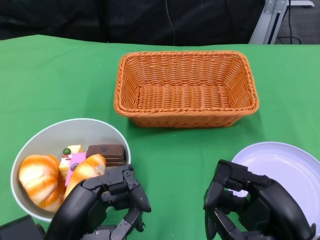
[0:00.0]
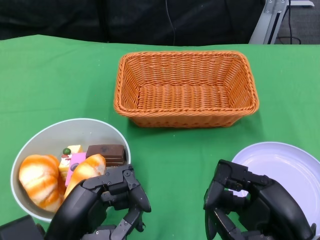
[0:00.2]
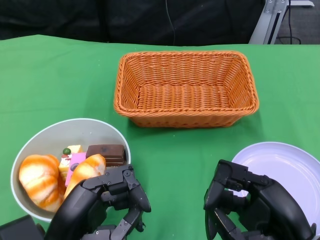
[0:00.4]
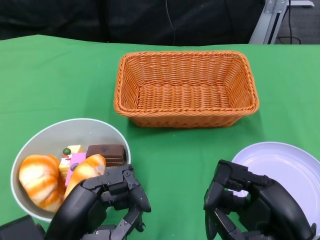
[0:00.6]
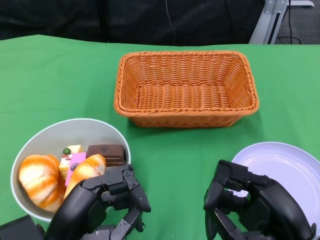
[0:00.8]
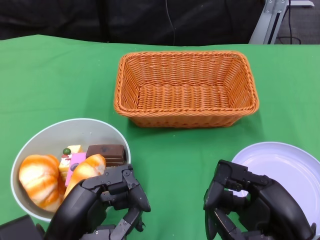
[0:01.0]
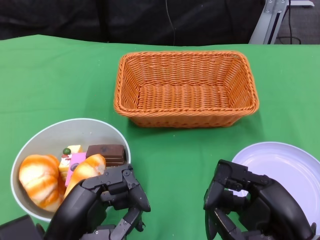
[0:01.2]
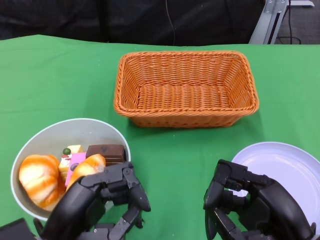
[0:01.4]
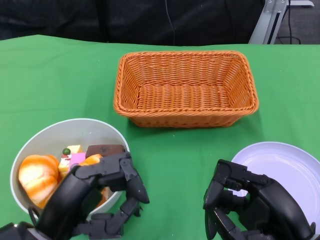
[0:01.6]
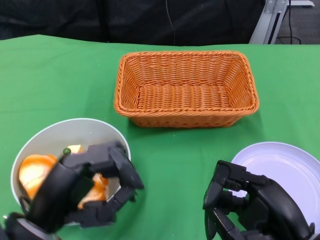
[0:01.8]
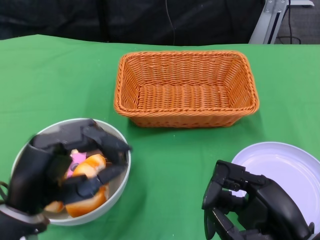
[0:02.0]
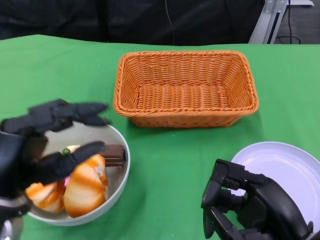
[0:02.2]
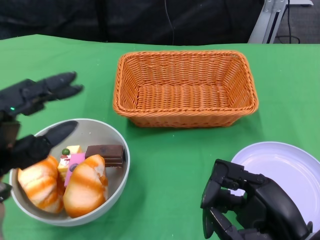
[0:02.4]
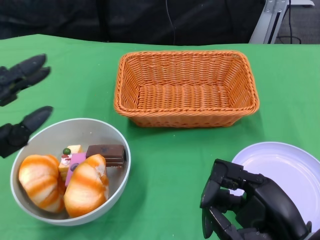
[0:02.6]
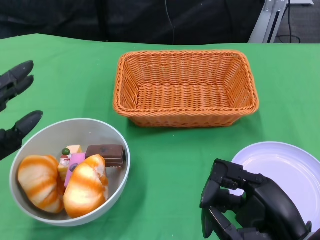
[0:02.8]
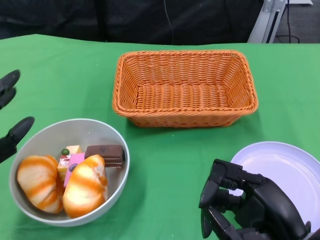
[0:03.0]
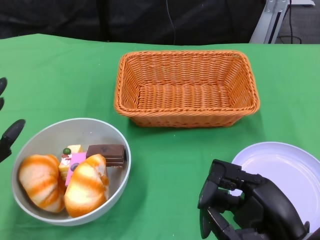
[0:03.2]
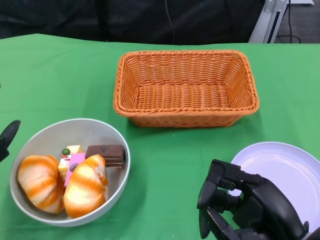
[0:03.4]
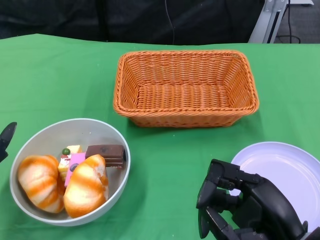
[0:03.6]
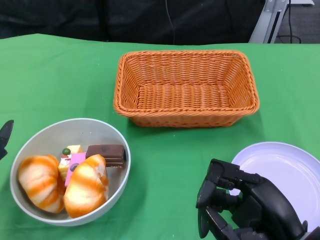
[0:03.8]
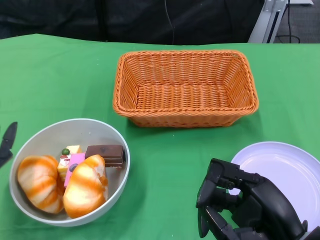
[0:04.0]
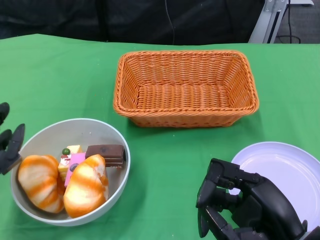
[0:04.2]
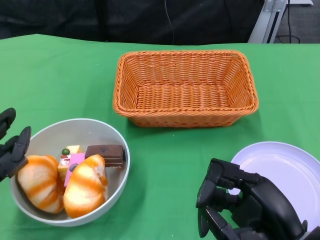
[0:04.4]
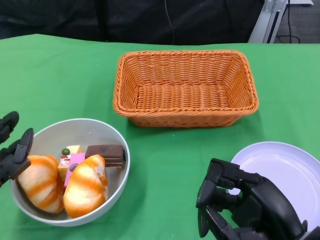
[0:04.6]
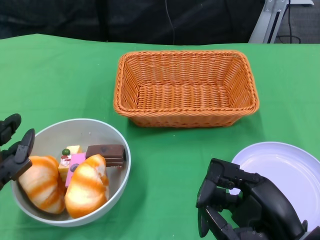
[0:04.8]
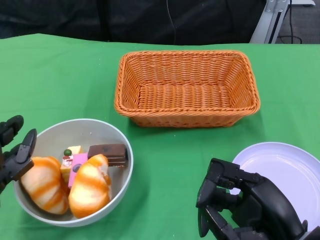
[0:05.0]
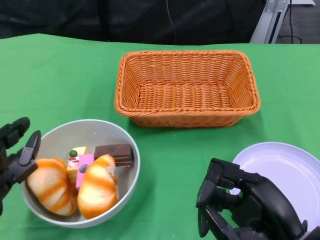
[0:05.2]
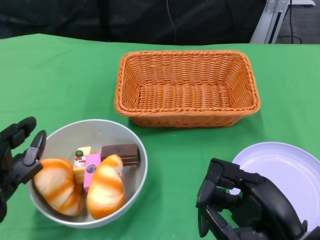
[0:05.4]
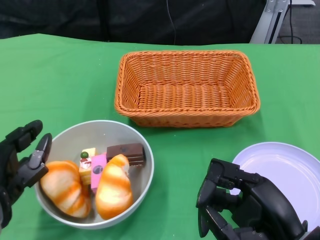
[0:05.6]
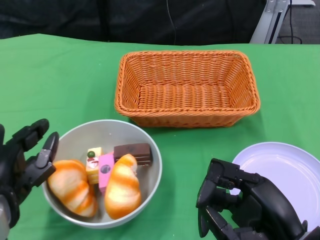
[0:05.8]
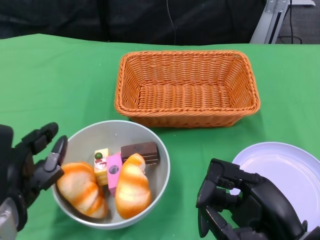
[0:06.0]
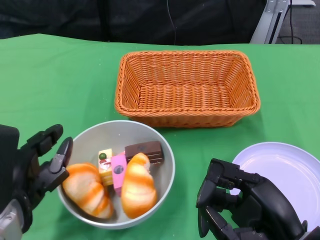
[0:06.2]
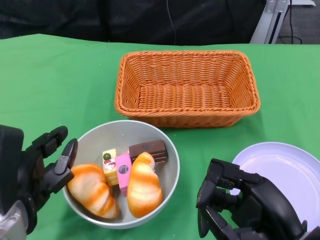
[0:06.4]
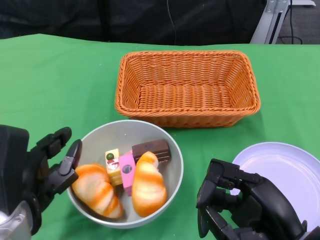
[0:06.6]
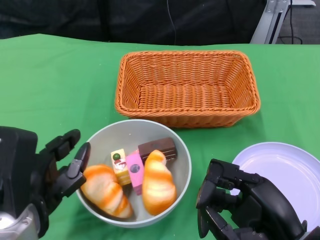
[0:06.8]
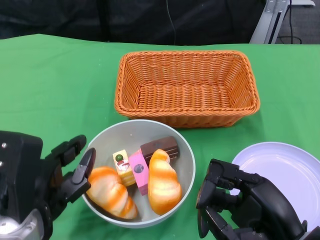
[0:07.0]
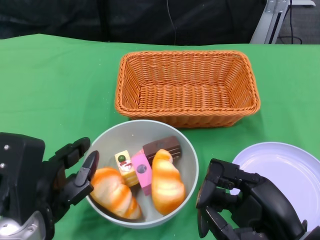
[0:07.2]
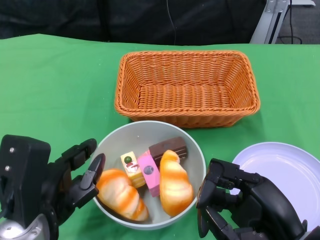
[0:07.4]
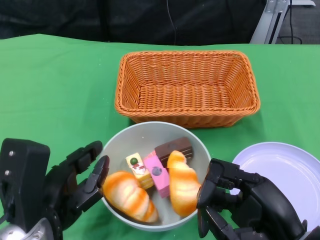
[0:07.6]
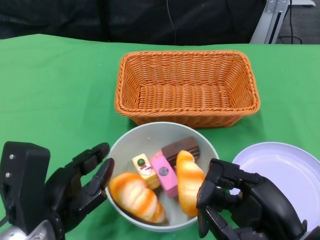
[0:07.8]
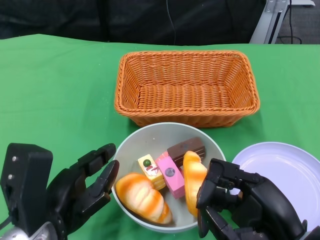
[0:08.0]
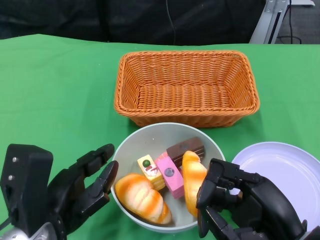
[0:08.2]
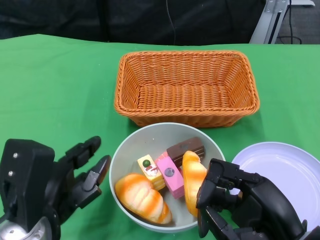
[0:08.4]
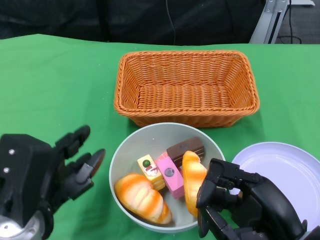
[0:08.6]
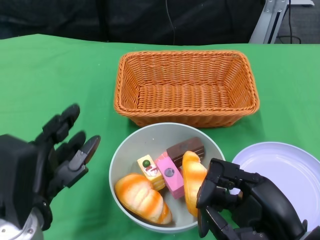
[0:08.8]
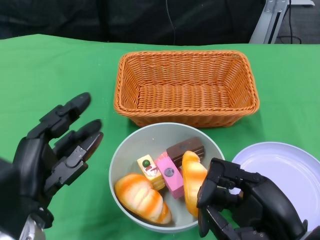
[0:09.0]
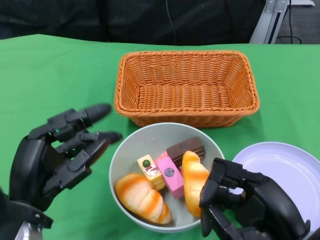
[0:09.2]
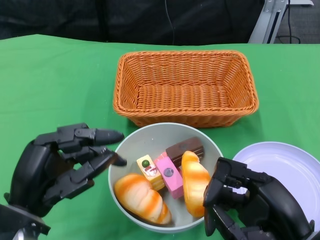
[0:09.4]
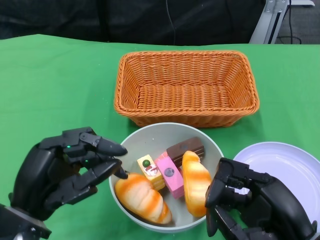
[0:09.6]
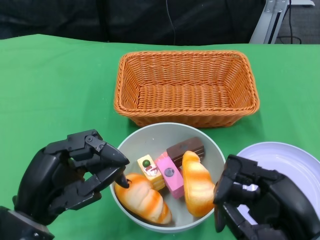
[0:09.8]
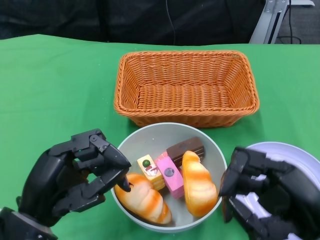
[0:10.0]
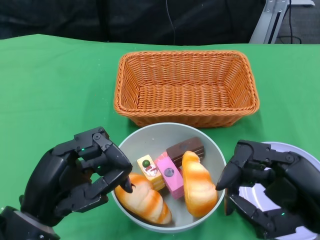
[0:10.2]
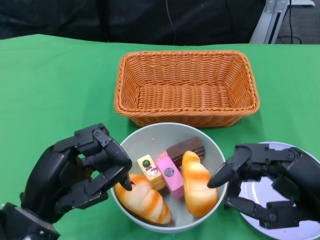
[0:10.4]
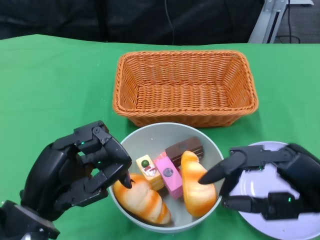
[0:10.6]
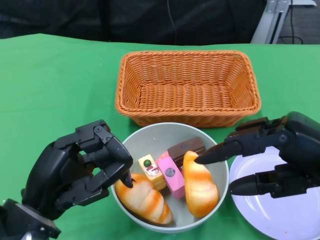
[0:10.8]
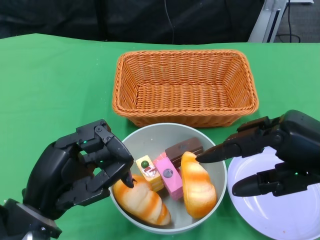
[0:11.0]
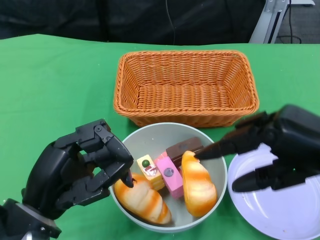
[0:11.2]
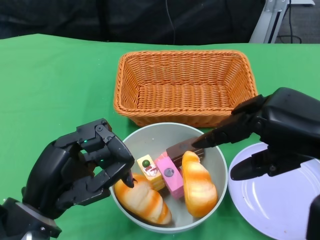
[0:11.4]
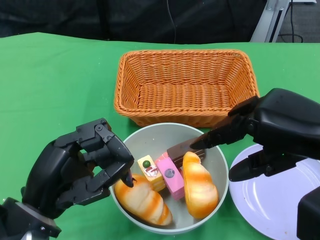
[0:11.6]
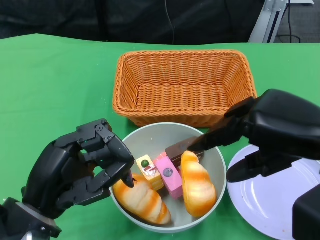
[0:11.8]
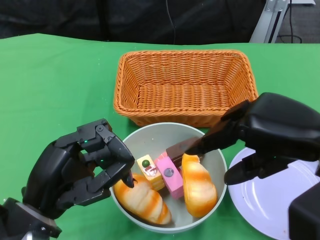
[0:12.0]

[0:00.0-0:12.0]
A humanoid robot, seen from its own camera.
Step, 0:00.0 to 0:08.4: Push the bowl to the center of the table using the left gripper.
0:01.6 to 0:03.0: The left hand moves to the left and forward, some 10 cm.
0:04.4 to 0:06.0: The left hand moves approximately 5 cm.
0:09.0 to 0:10.4: The right hand shifts by some 5 cm.
0:10.4 to 0:12.0: The right hand goes approximately 10 cm upward and forward.

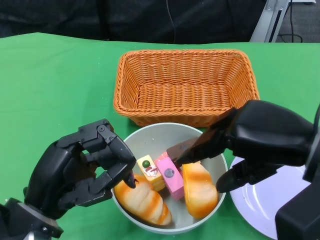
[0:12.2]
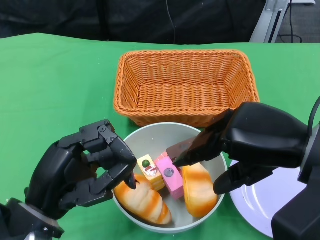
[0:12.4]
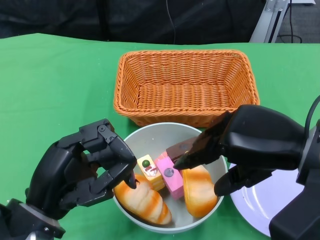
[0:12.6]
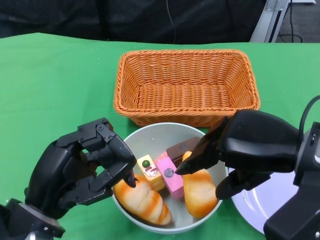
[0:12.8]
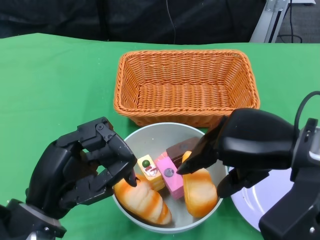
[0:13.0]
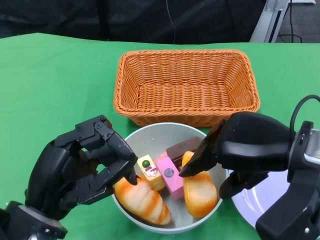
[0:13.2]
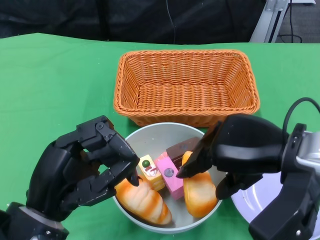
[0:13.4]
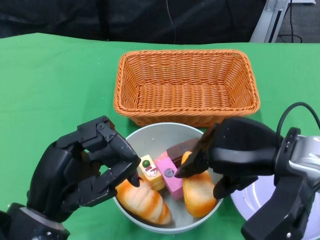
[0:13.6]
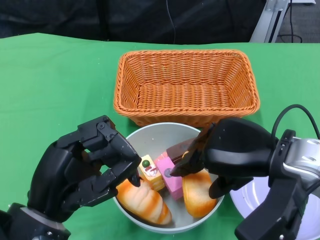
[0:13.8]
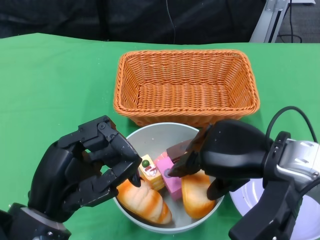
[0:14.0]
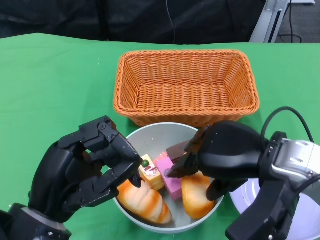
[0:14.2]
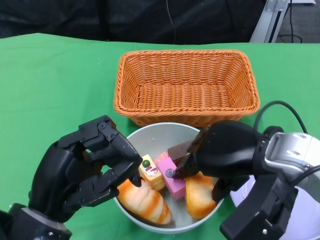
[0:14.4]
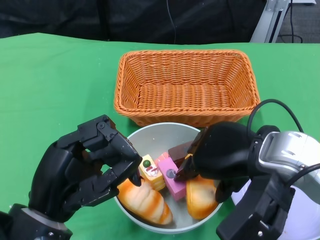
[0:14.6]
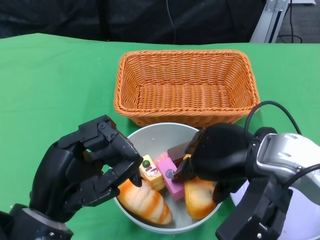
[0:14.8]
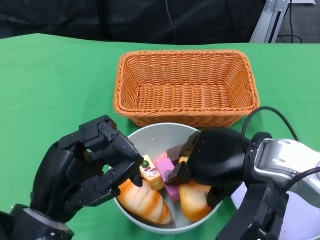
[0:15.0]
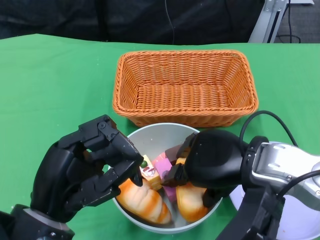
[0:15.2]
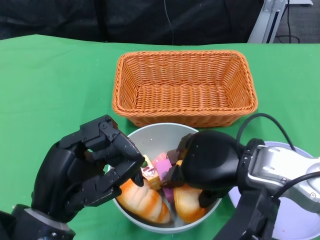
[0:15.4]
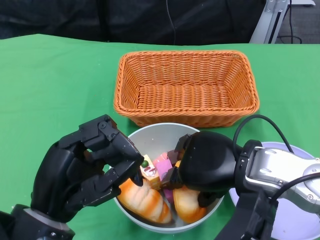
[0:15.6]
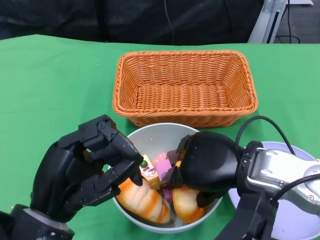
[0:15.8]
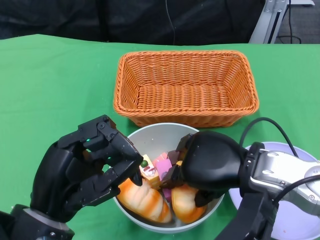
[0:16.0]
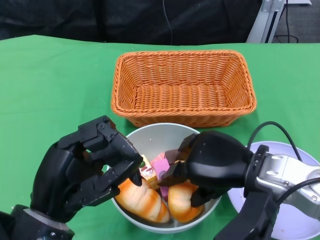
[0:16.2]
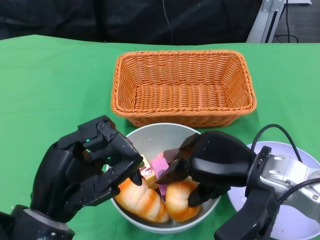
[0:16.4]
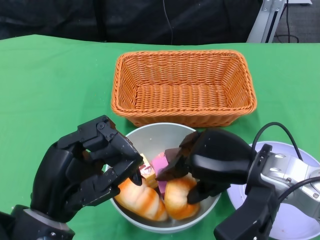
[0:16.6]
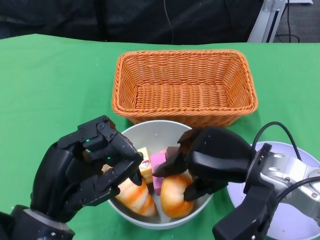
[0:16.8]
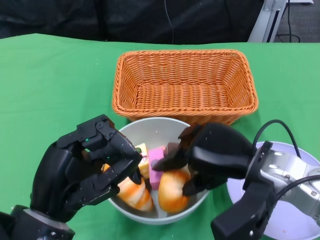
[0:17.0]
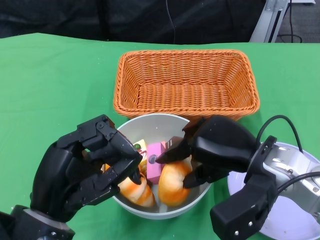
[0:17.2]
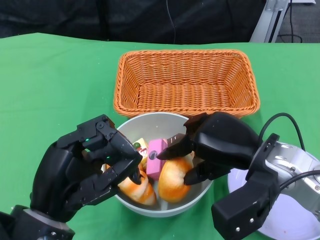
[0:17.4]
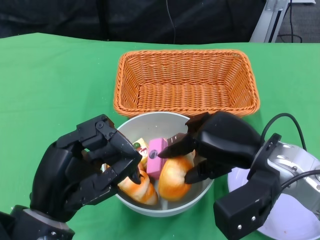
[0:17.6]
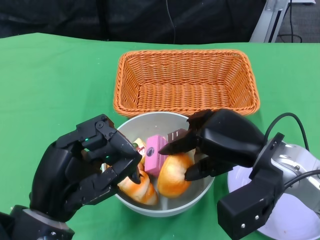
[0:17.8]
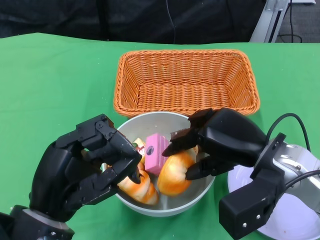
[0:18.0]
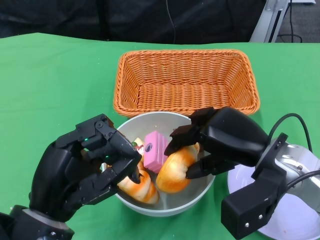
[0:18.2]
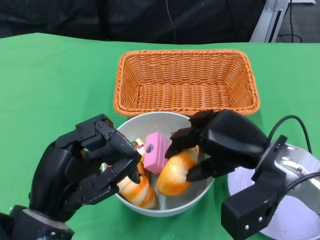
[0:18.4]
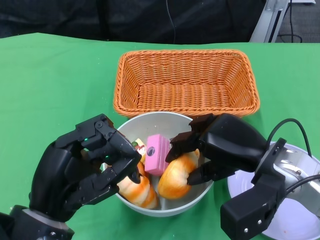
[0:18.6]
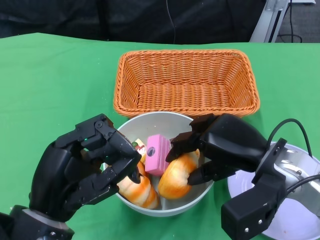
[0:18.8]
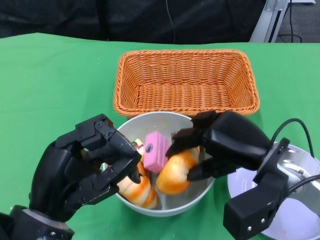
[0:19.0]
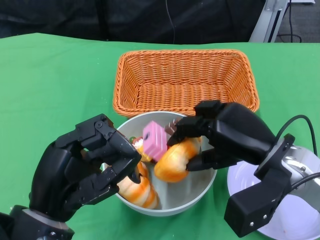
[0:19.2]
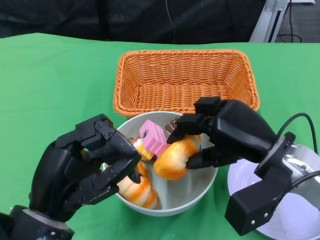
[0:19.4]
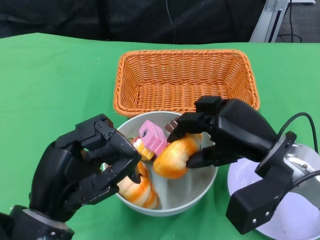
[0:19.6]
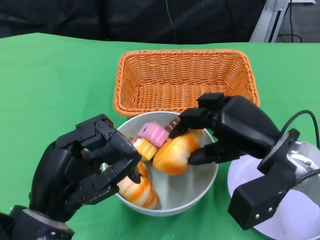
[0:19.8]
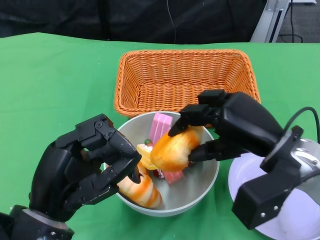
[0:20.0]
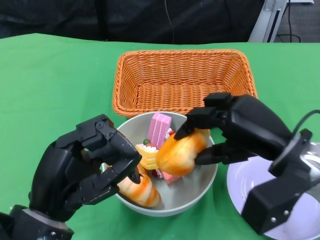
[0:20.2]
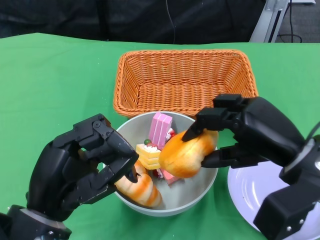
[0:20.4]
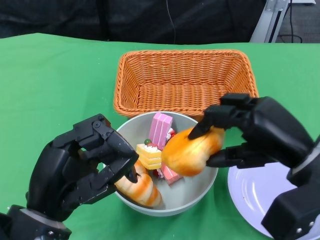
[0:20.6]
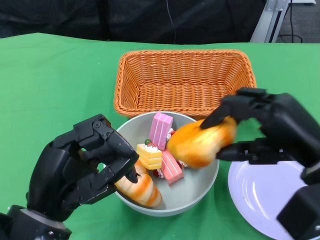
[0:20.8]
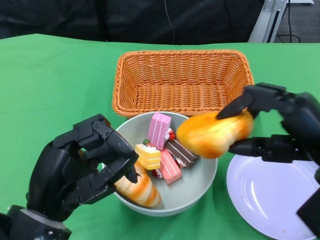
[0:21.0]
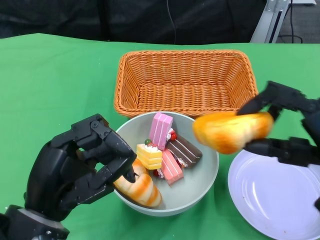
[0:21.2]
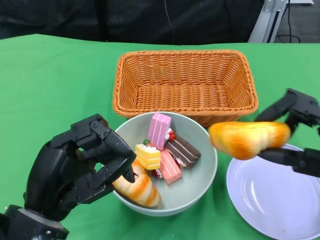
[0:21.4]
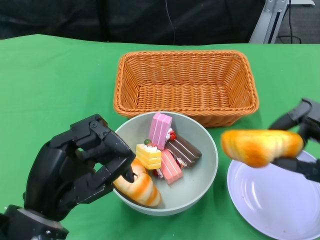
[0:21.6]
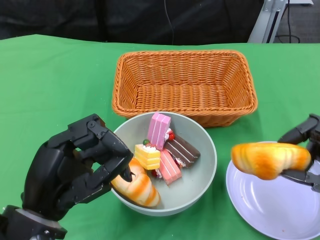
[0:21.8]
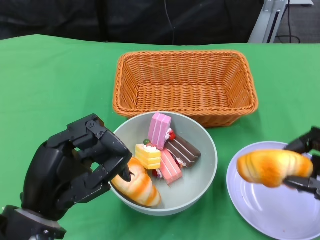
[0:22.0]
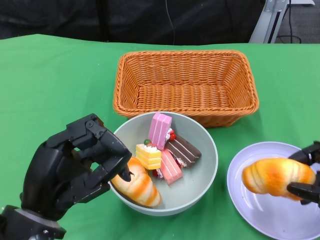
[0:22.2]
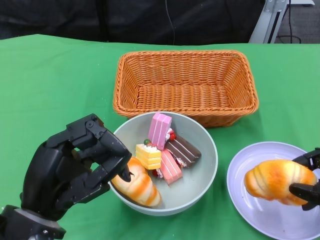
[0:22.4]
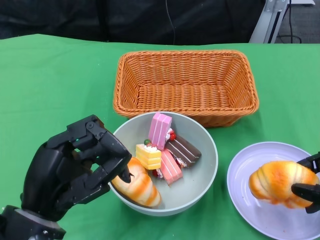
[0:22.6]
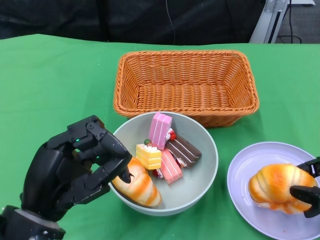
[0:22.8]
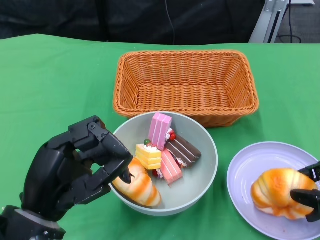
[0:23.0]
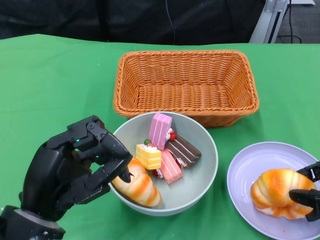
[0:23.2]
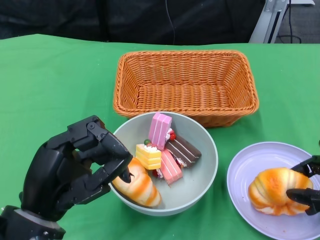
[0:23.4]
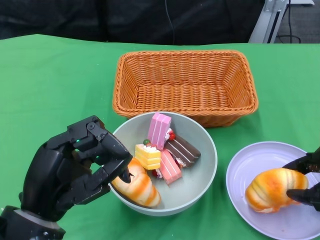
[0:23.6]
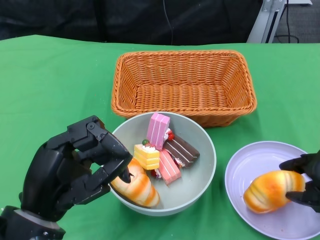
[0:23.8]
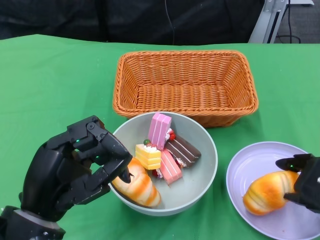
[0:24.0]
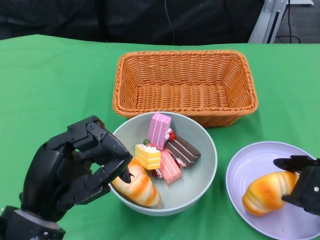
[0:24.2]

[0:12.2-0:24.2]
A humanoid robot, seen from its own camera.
0:12.2 to 0:13.8: The right hand ends up about 5 cm from where it was.
0:13.8 to 0:15.2: The hands move only a little.
0:18.2 to 0:19.8: There are only small adjustments of the hands.
0:19.8 to 0:21.2: The right hand travels to the right and backward by about 10 cm.
0:21.2 to 0:22.6: The right hand goes about 5 cm to the right.
